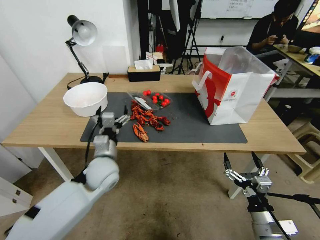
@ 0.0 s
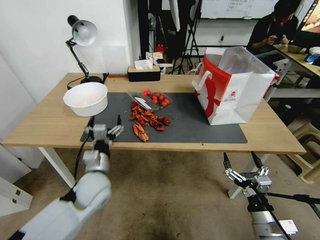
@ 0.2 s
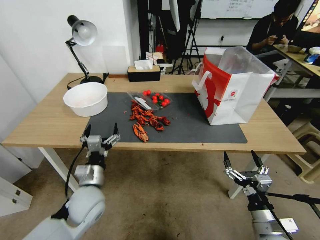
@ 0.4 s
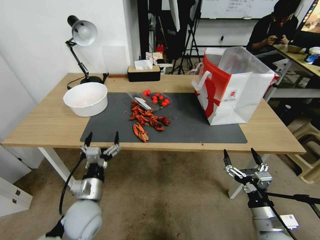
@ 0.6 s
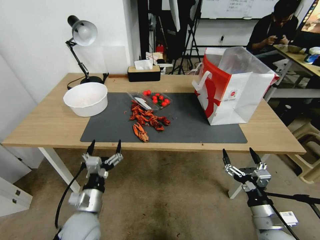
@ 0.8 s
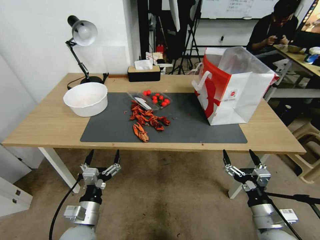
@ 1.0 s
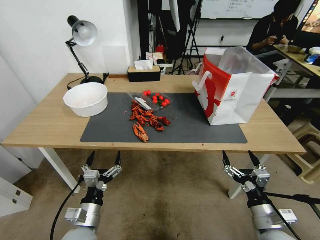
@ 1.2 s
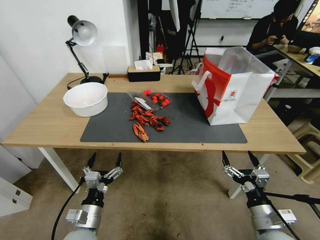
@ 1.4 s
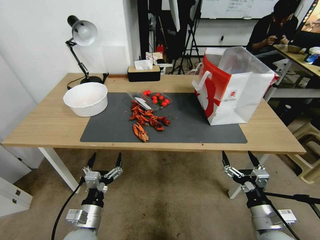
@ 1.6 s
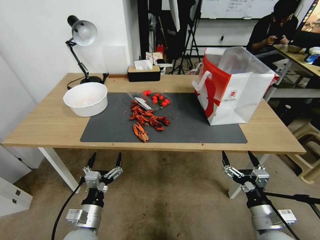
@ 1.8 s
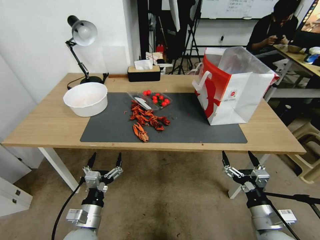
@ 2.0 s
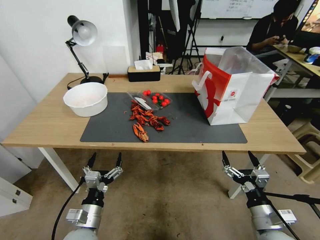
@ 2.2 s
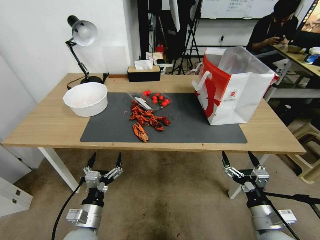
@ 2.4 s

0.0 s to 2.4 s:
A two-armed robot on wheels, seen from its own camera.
0.0 to 1.2 s: The left gripper goes roughly 20 cm backward and downward.
1.2 to 2.4 s: The grippers move only a little.
